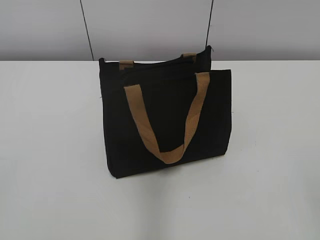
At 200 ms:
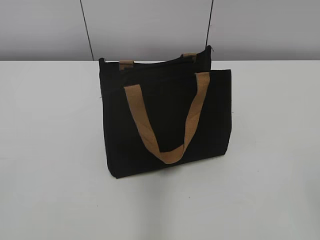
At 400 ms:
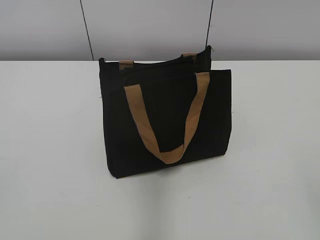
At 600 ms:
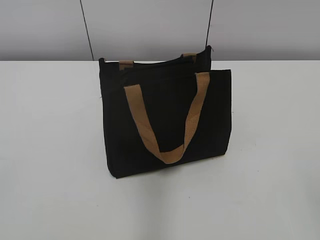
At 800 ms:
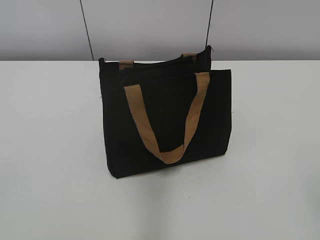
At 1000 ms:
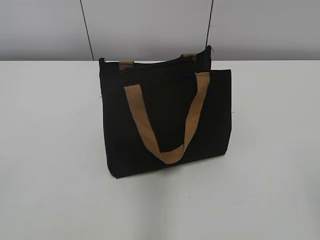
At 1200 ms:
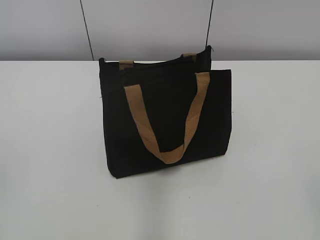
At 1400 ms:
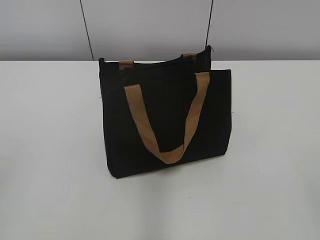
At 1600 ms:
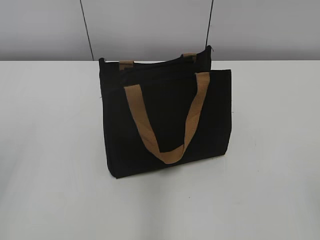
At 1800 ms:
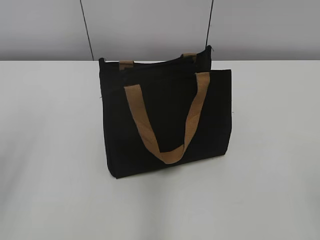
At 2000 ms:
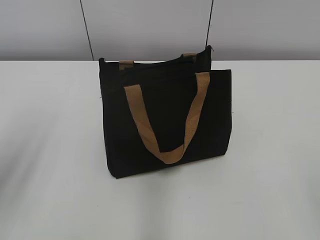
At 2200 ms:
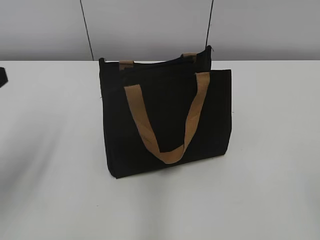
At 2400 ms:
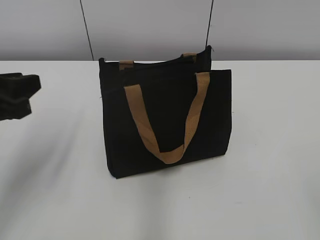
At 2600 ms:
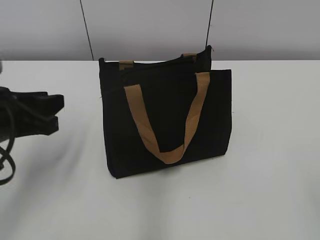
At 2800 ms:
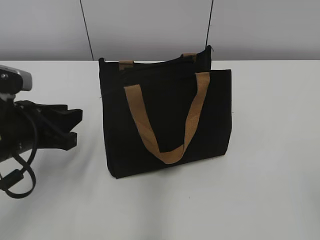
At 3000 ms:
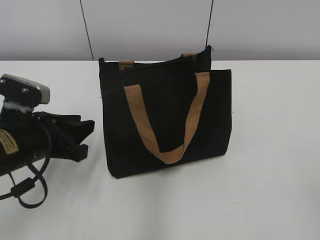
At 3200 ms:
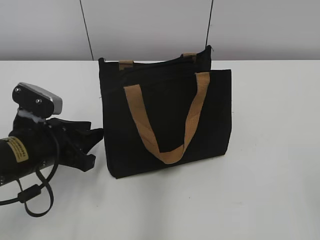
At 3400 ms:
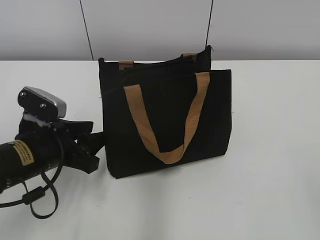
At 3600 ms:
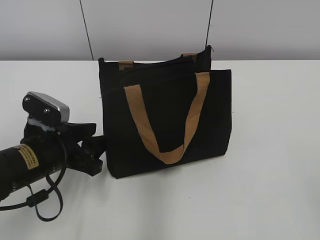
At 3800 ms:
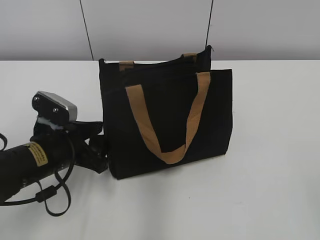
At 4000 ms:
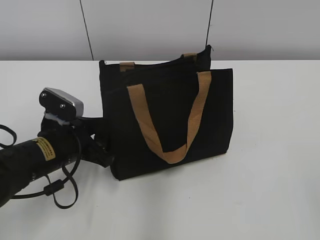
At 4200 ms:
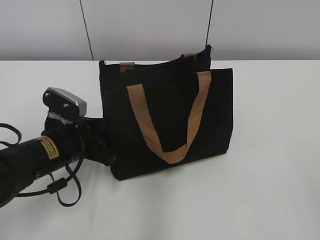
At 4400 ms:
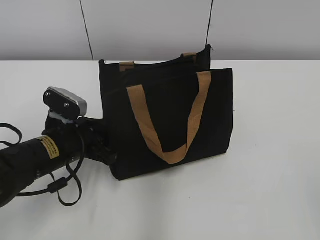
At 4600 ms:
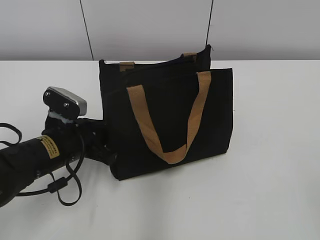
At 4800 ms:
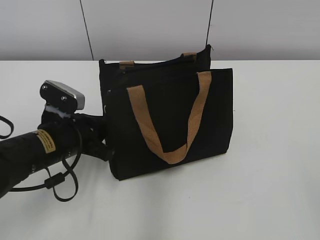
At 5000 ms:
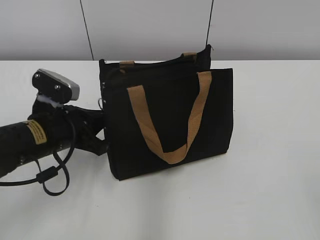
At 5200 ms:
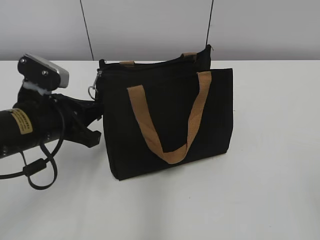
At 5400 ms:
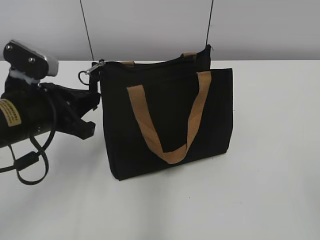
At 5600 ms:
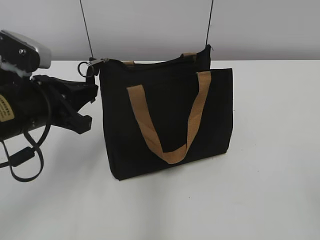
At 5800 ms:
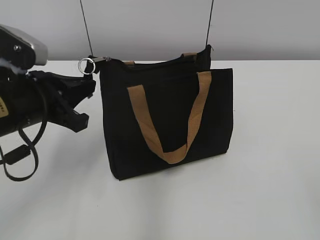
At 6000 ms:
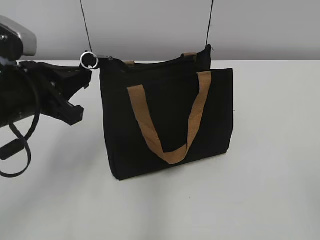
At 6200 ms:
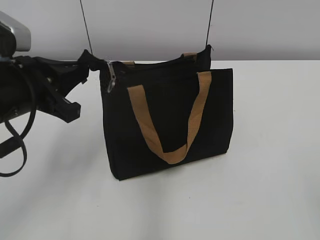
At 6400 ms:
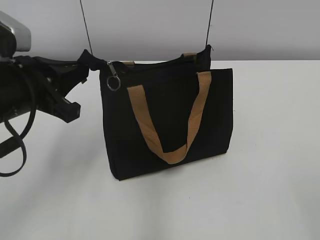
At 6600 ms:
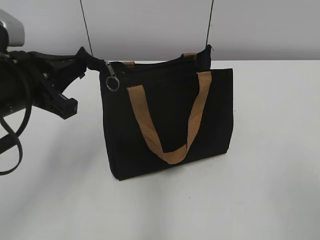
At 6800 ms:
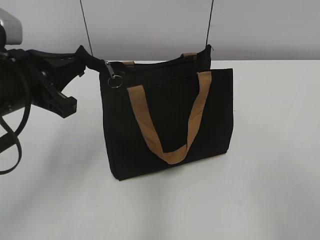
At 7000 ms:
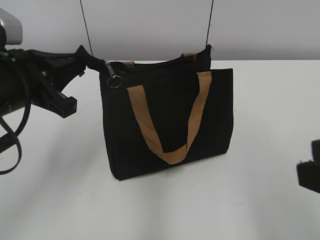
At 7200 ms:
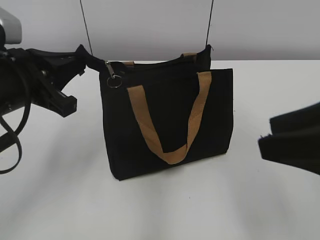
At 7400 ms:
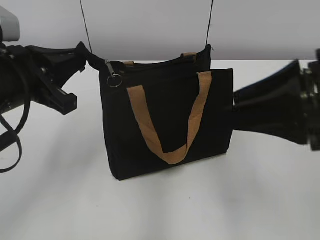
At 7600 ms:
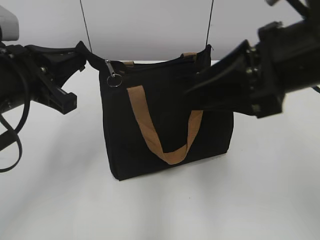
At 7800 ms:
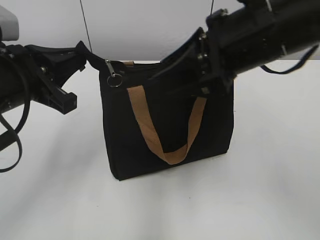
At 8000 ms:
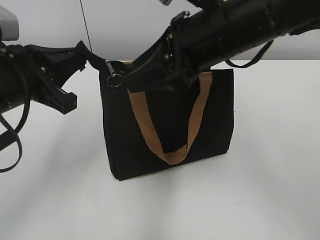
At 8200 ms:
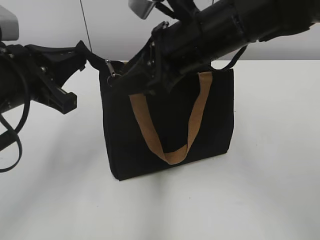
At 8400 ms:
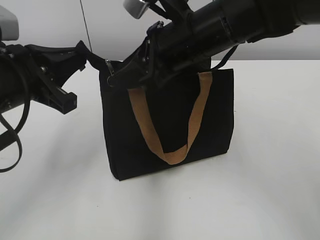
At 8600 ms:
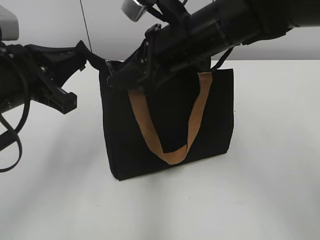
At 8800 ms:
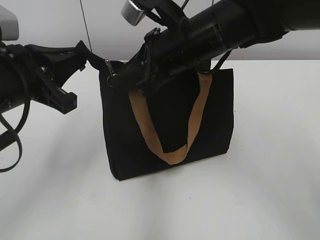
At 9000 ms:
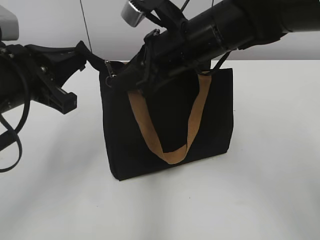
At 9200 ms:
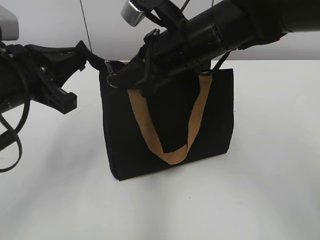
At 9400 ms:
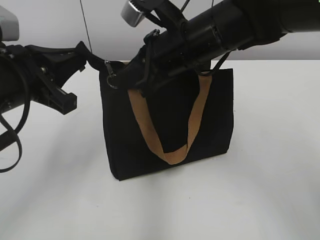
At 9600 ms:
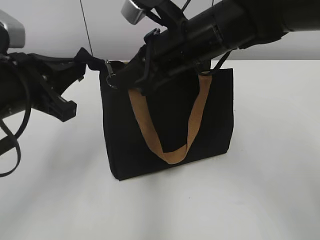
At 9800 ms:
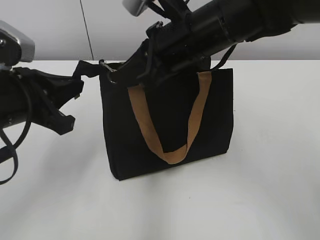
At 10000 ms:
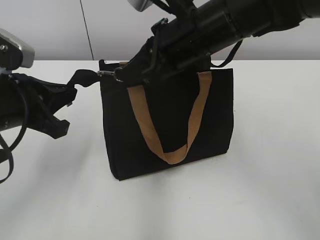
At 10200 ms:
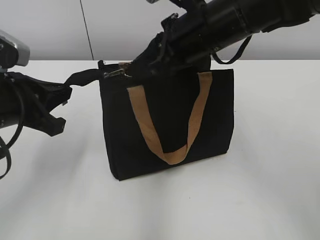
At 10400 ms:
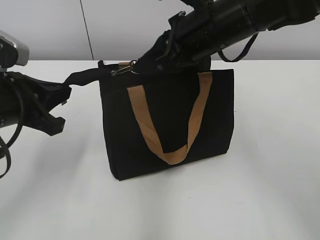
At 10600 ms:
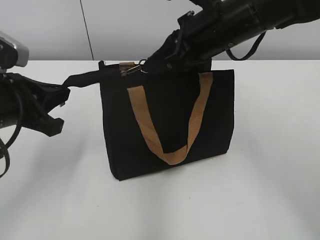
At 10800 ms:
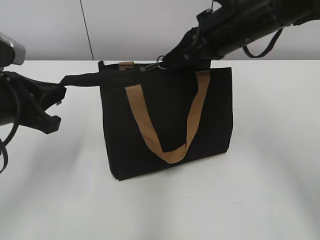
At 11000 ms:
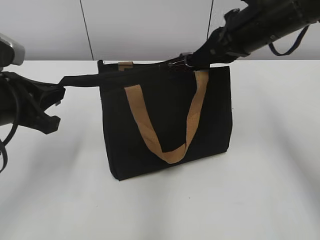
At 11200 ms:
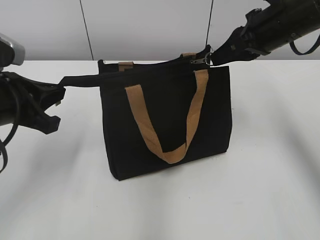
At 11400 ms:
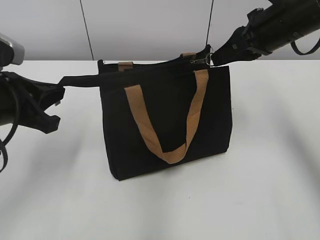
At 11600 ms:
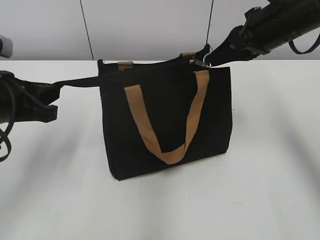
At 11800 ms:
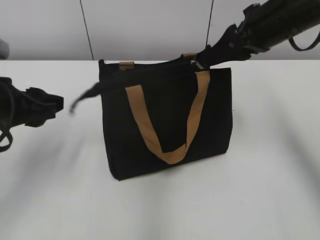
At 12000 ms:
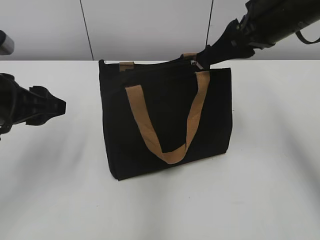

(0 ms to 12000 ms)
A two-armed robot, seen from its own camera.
Step, 0 ms - 11600 ms: Zip up the bag with your right hand.
1600 ms - 3000 ms: The left gripper goes some 25 cm downward, forward and to the right.
3000 ms - 4400 ms: The left gripper shifts some 5 cm downward.
4400 ms - 6000 ms: The left gripper heads upward, covering some 10 cm, and closes up.
6000 ms - 7600 ms: The right gripper heads forward and to the left, covering roughly 25 cm.
7600 ms - 9000 ms: The right gripper shifts some 15 cm forward, to the left and downward, and closes.
9000 ms - 10400 ms: The right gripper closes.
10400 ms - 12000 ms: The right gripper travels to the right by approximately 10 cm, and opens its fingers. Meanwhile the left gripper opens up.

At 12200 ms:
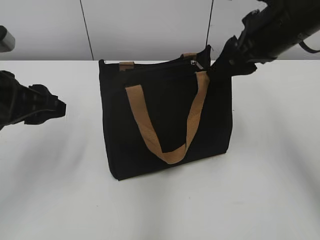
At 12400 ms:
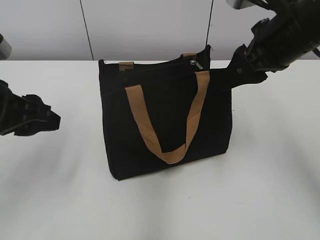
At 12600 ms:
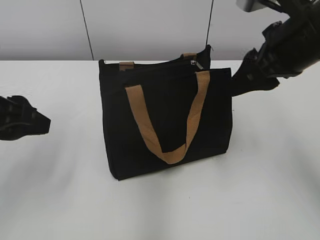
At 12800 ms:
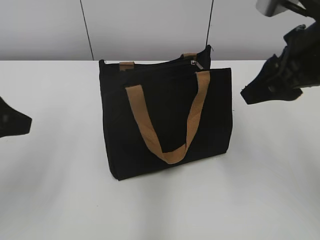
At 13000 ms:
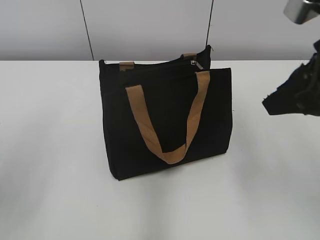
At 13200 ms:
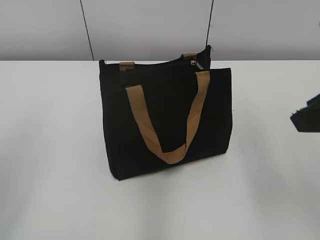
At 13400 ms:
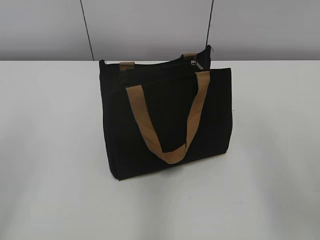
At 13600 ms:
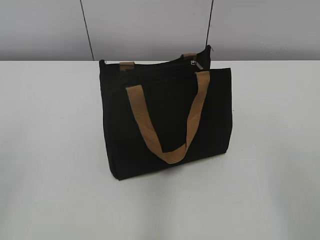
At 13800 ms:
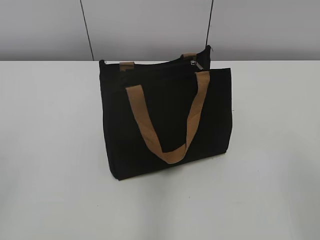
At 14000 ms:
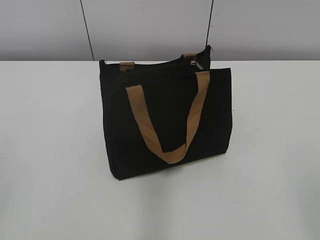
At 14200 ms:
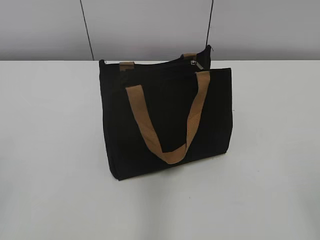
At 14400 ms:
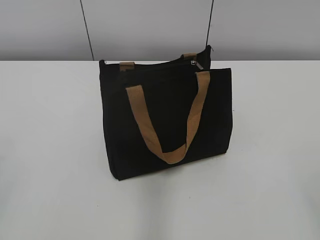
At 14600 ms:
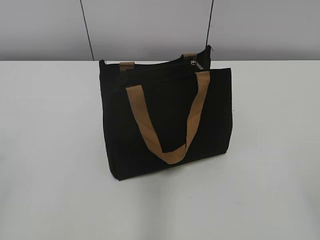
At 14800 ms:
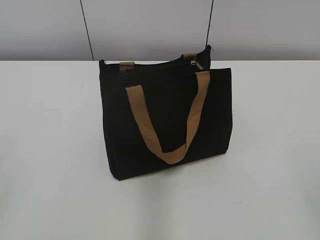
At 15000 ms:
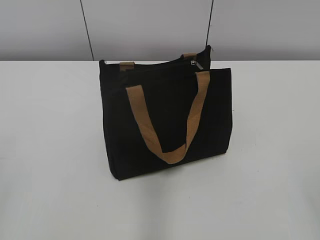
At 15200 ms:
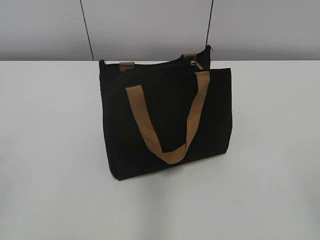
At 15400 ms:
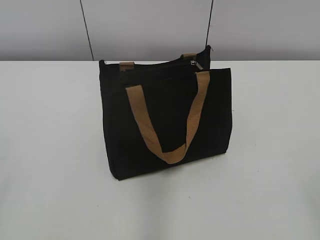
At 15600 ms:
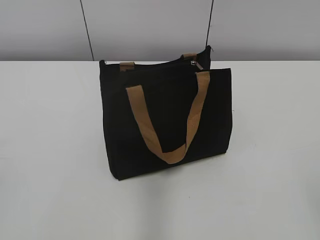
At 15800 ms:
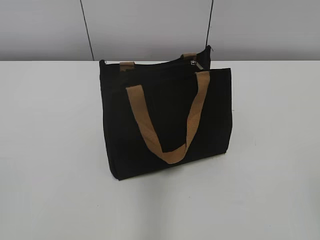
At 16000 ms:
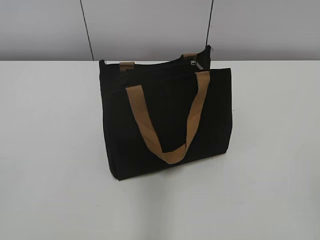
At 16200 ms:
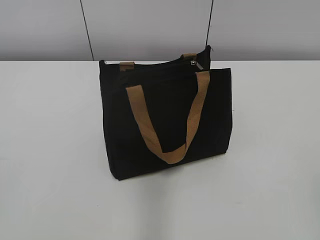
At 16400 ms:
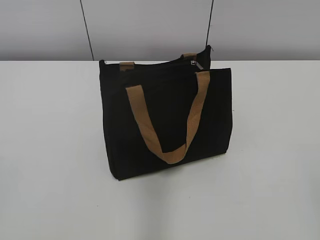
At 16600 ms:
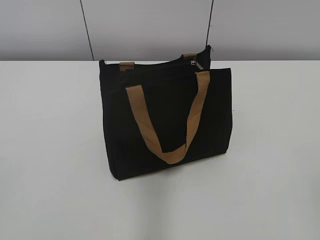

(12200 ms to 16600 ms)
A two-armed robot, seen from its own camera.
12200 ms - 13600 ms: The left gripper travels backward, to the left and upward by about 20 cm. The right gripper travels backward by approximately 25 cm.
